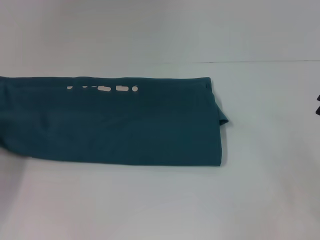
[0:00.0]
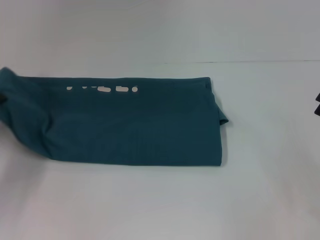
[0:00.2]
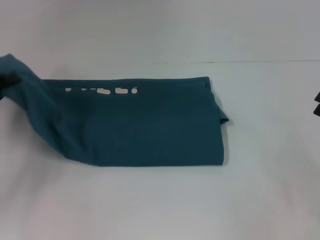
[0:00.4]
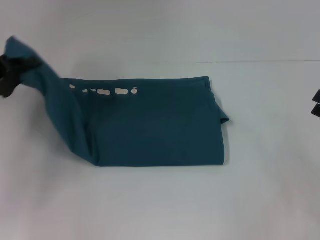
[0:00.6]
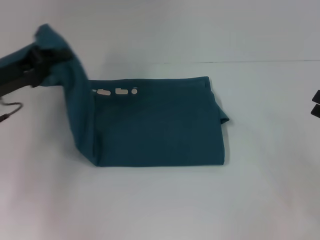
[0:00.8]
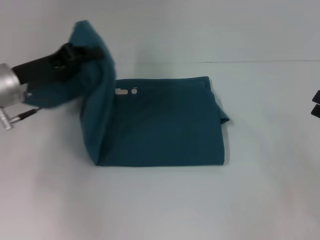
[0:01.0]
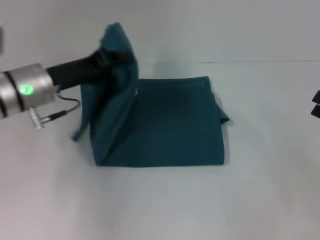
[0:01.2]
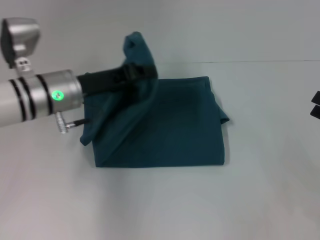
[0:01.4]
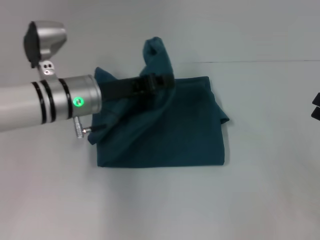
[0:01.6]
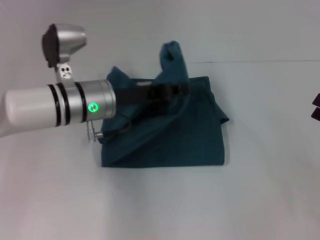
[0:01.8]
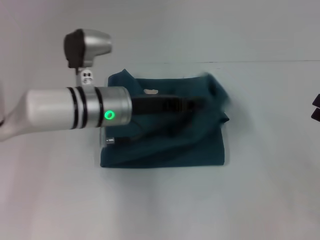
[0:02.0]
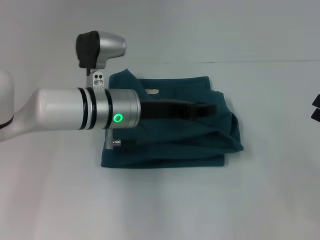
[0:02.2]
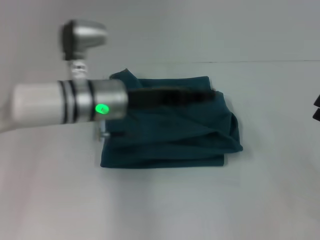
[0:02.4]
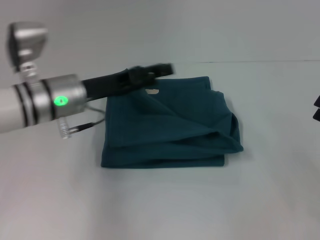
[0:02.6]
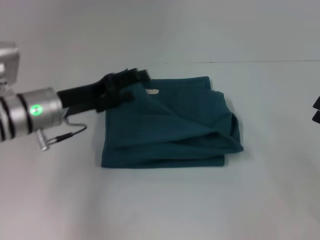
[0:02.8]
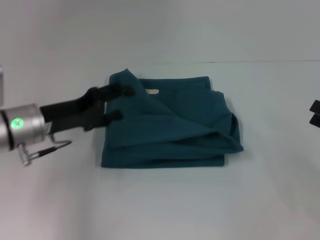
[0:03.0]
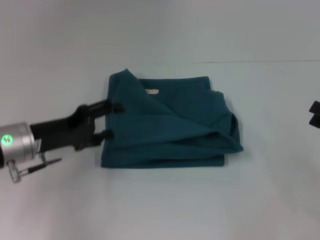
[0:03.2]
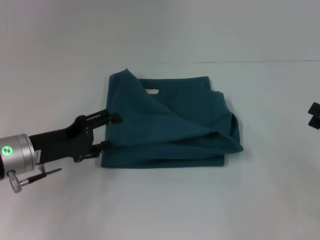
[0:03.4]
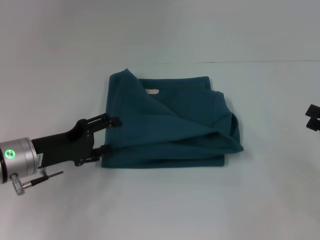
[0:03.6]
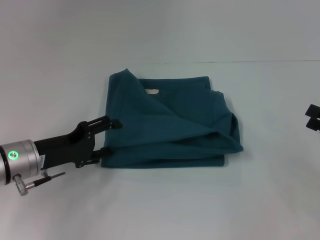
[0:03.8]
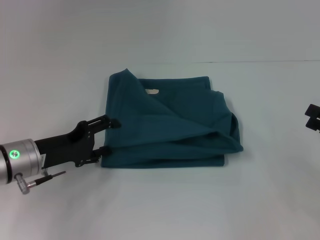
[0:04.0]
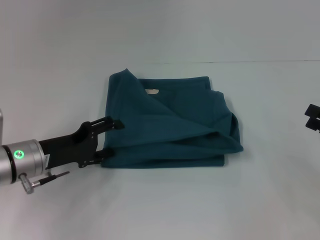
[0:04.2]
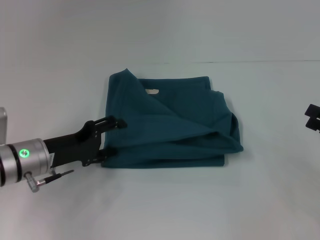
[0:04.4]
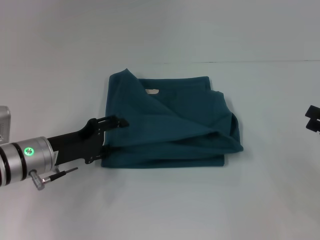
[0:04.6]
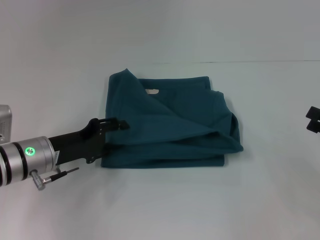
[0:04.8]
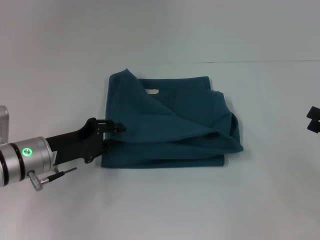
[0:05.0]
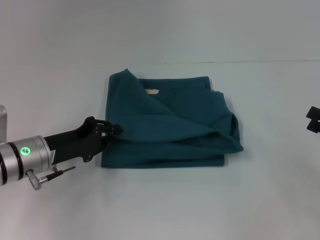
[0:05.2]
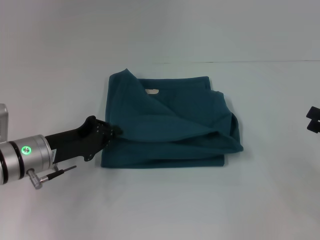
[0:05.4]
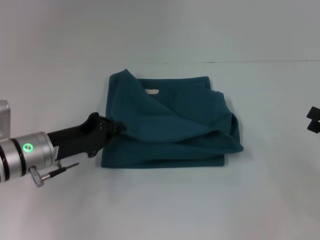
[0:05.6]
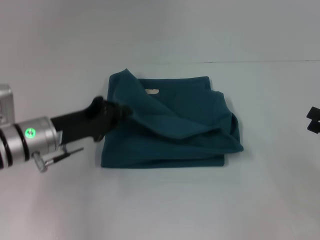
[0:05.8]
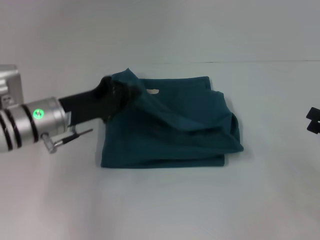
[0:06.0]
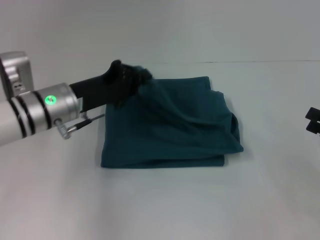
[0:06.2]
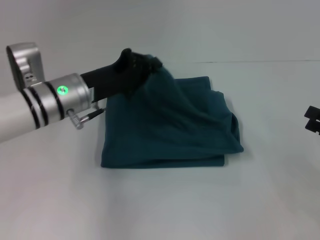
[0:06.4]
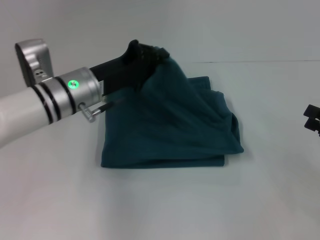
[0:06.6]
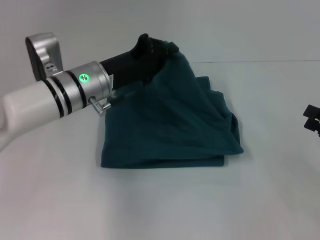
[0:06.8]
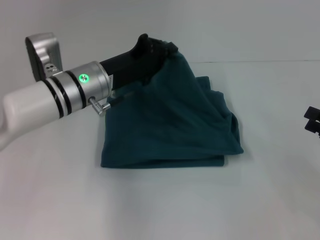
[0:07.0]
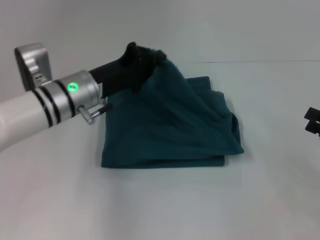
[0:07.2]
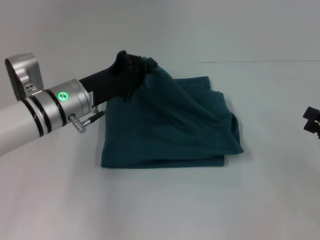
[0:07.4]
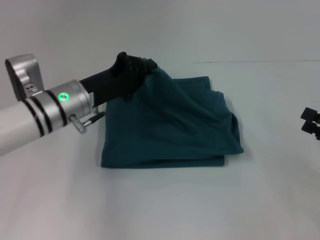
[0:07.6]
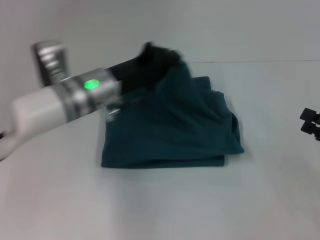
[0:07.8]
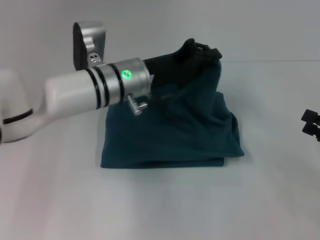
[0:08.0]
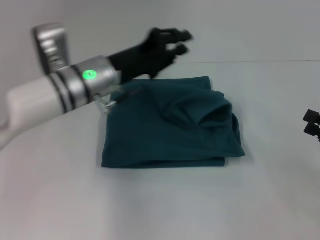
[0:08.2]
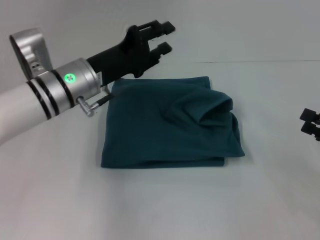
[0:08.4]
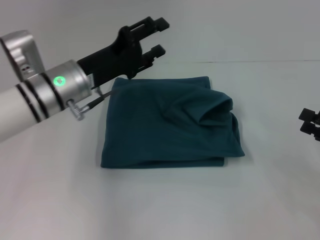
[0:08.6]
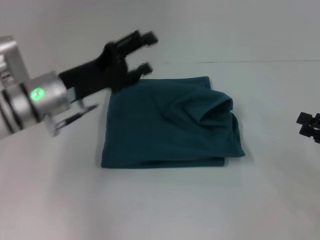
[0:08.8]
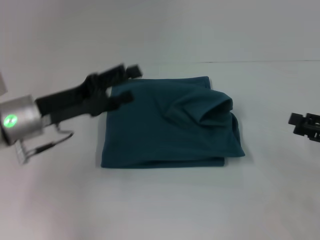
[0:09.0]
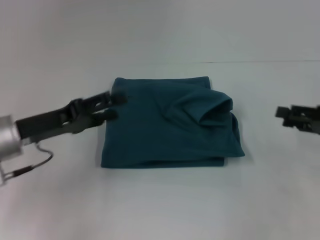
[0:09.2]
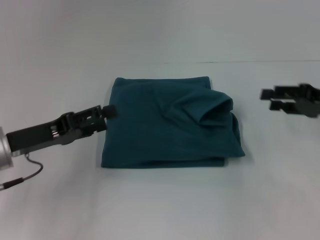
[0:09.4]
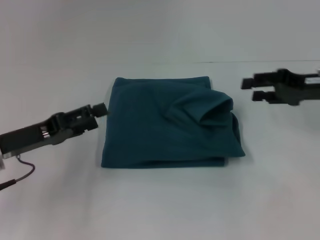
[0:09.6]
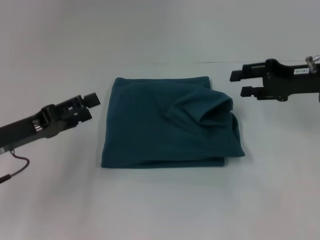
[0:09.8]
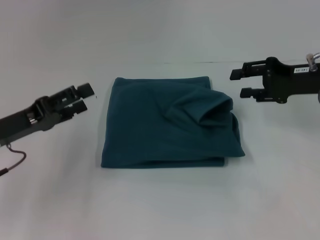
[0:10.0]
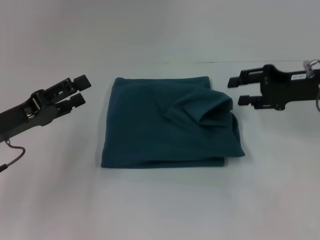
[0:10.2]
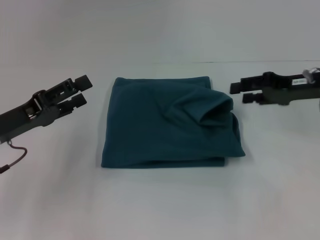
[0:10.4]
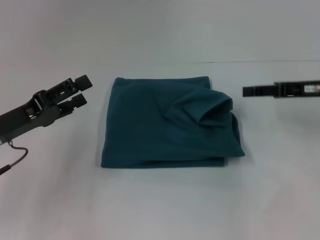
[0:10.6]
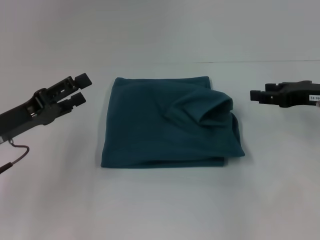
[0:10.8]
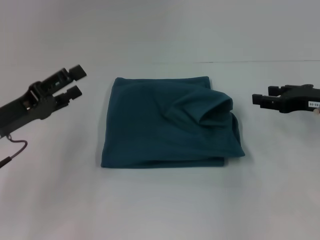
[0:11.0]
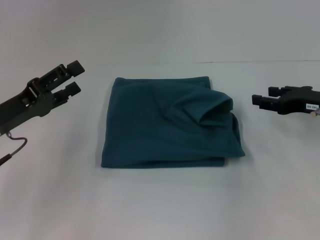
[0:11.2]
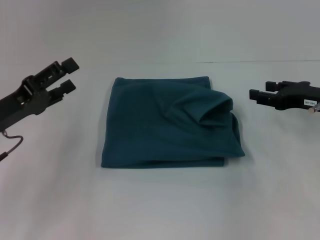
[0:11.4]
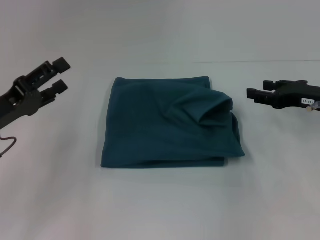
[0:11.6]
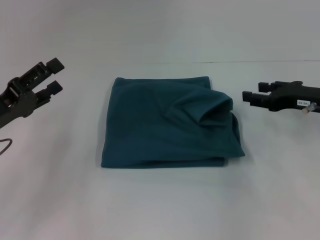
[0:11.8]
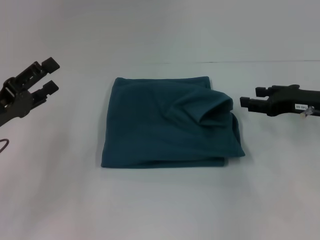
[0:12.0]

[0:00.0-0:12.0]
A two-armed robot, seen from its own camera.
Step, 0:00.0 to 0:02.2: Fold the clothes to the left.
0:00.0 to 0:01.6: The left gripper travels to the right by approximately 25 cm.
0:01.6 to 0:03.0: The left gripper shifts about 5 cm to the left, and opens its fingers.
0:03.0 to 0:04.4: The left gripper shifts roughly 5 cm downward.
0:04.4 to 0:06.0: The left gripper changes place by roughly 5 cm, and closes.
0:07.6 to 0:09.0: The left gripper moves to the left, about 5 cm, and opens its fingers.
0:09.0 to 0:10.4: The right gripper heads forward, to the left and upward, covering roughly 15 cm. The left gripper is displaced to the left by some 5 cm.

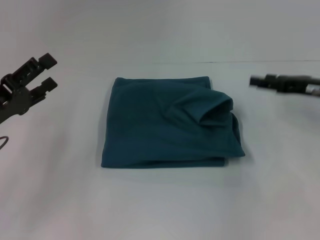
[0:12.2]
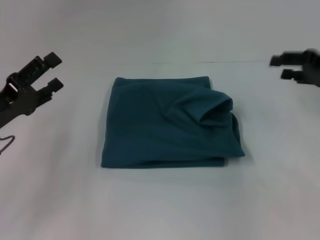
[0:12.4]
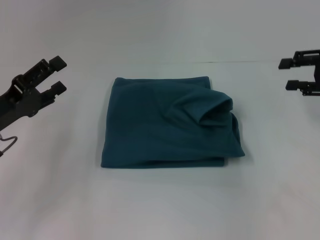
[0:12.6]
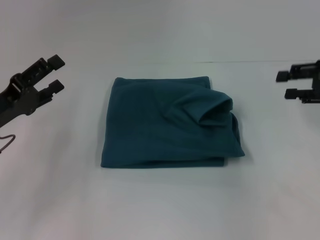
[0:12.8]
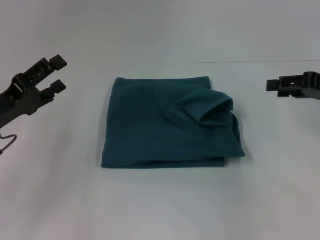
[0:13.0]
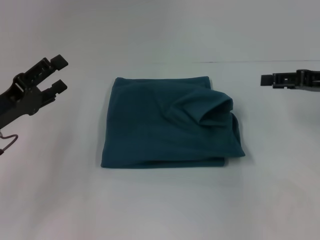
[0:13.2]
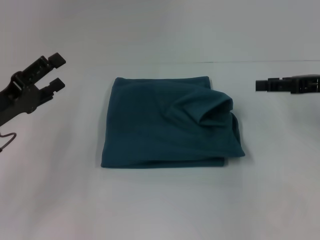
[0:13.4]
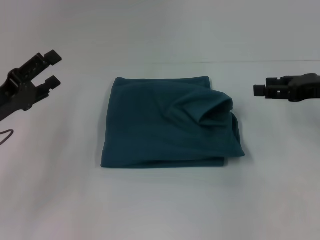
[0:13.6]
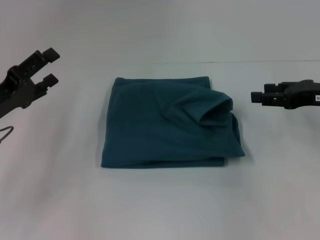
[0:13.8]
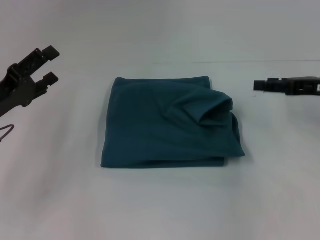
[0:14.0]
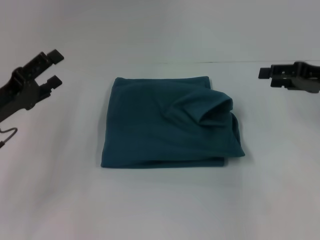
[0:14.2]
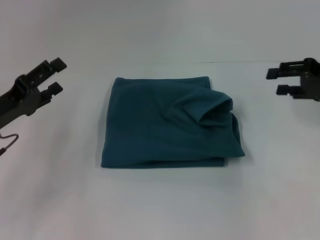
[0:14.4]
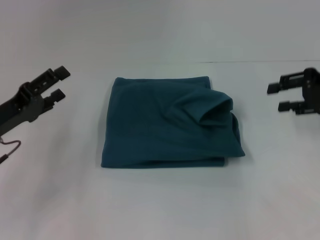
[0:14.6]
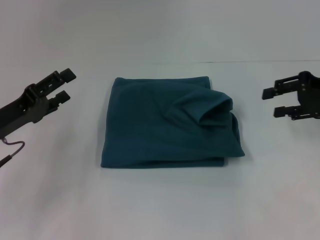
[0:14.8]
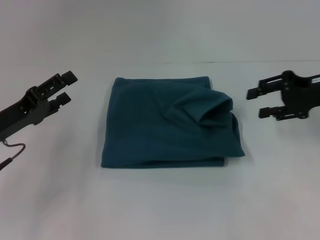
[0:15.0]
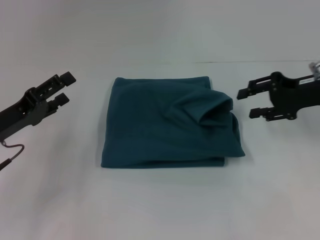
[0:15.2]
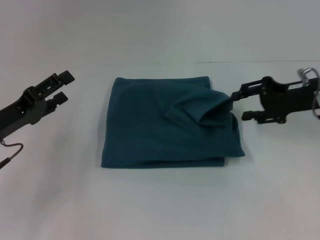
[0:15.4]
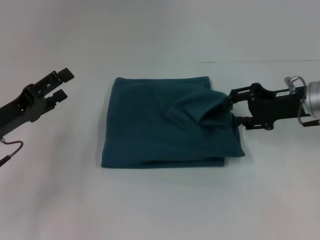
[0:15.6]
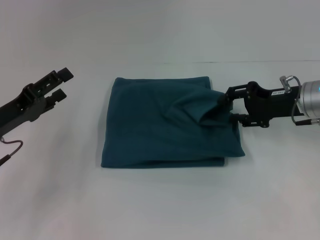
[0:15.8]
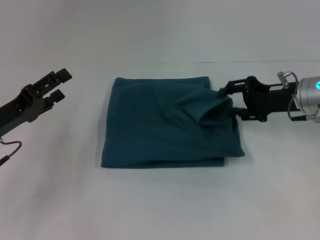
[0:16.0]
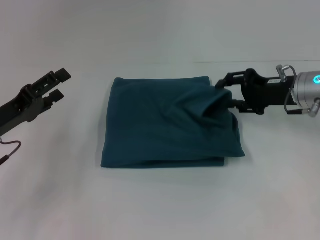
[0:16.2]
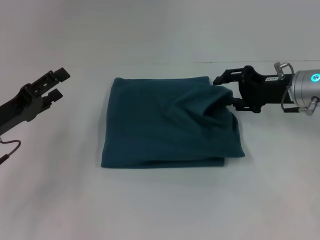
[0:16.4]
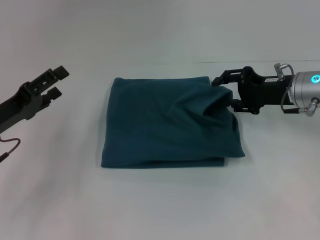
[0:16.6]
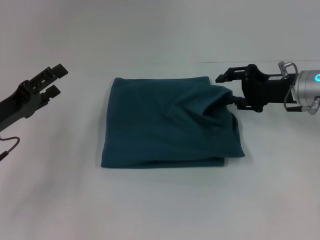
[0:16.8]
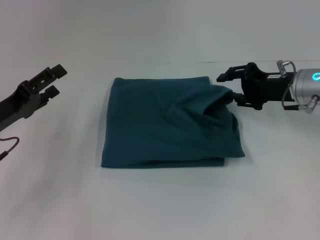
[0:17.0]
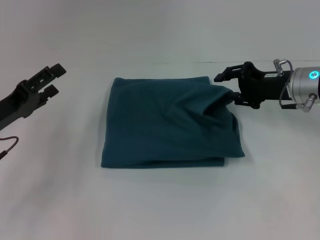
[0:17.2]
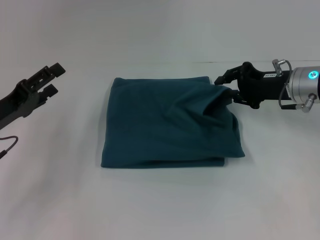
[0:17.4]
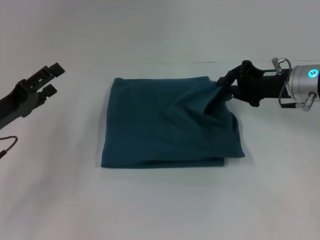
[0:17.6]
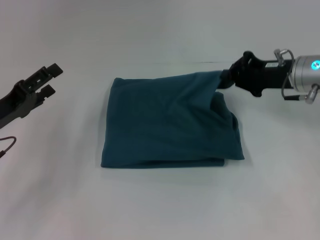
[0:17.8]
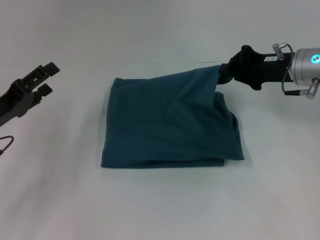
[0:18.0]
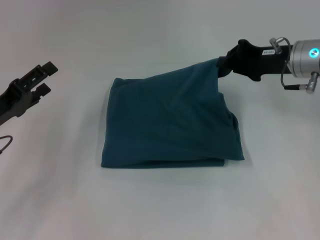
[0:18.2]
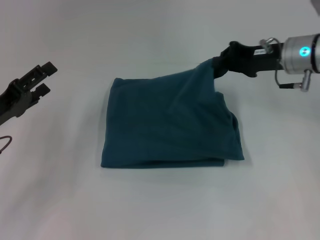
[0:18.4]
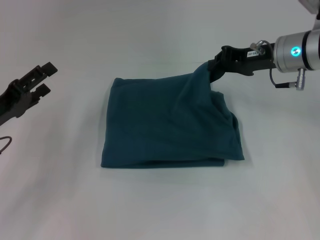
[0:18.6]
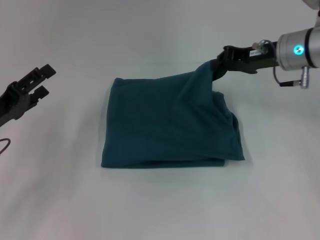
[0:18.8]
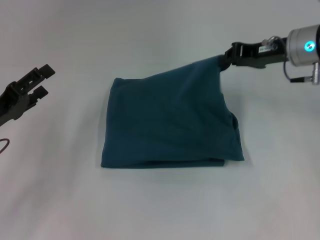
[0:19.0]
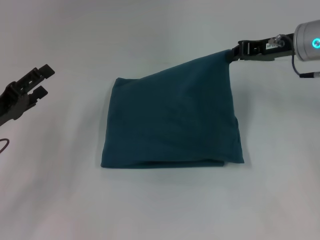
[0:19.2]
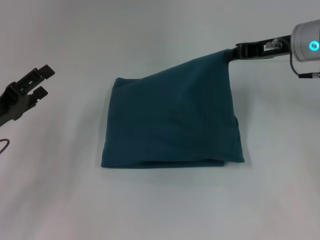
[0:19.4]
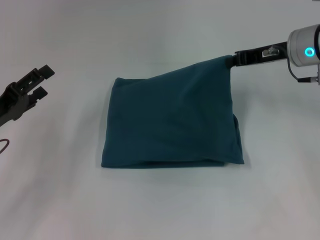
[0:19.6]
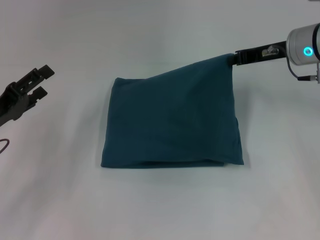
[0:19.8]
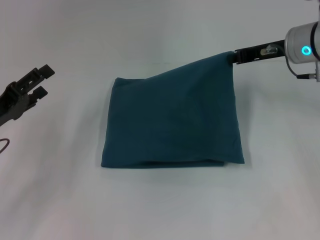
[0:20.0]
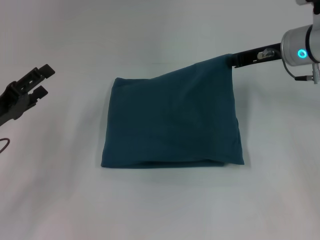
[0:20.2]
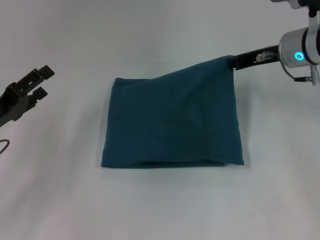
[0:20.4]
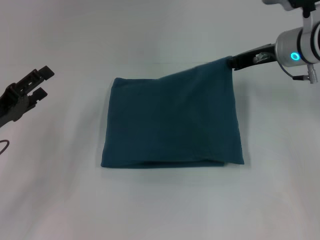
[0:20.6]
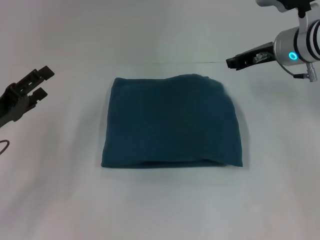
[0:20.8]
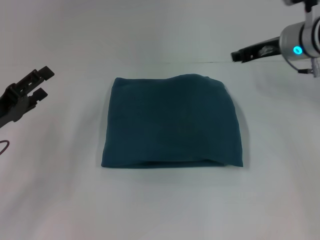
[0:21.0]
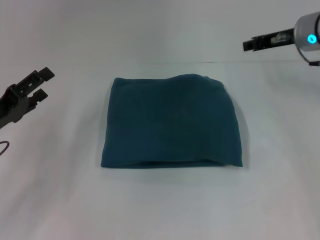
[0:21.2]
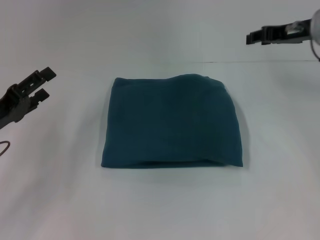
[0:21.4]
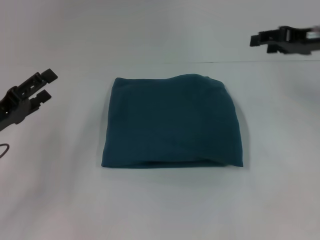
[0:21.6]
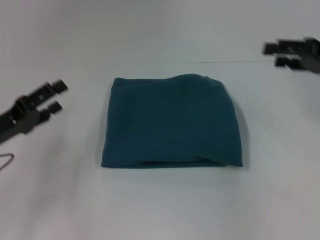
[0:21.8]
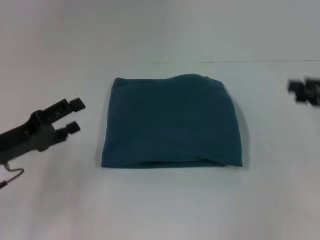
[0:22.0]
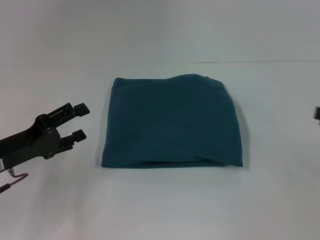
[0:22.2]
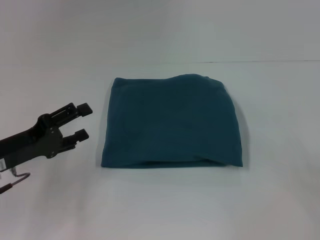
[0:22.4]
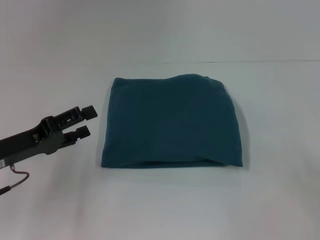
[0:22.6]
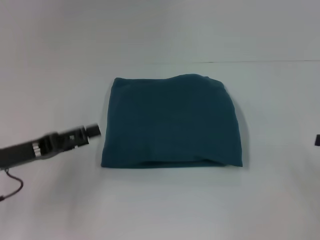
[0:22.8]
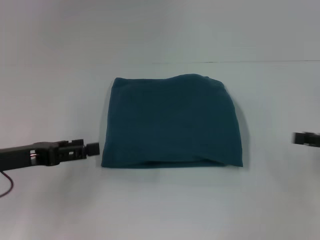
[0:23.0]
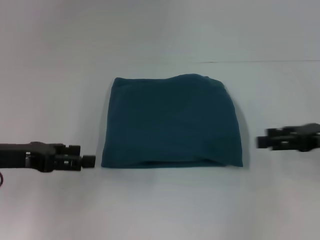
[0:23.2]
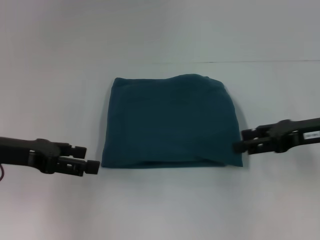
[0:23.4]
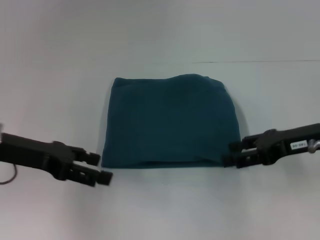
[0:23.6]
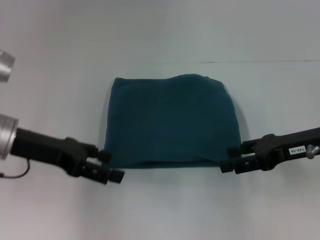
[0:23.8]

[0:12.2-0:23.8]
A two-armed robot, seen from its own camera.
0:15.0 to 0:16.6: The right gripper shifts about 5 cm to the left.
0:16.6 to 0:18.0: The right gripper closes.
0:19.4 to 0:21.0: The right gripper opens its fingers.
0:21.0 to 0:22.4: The right gripper moves backward and to the right, about 30 cm, and opens up.
0:22.4 to 0:23.8: The left gripper heads upward, covering about 5 cm. The right gripper moves to the left and forward, approximately 15 cm.
